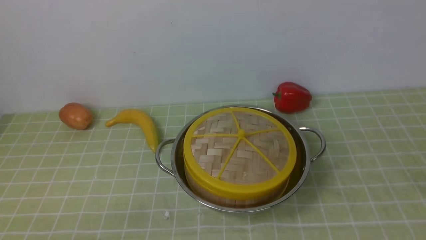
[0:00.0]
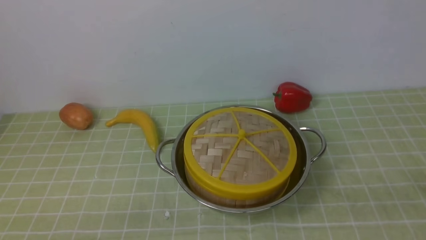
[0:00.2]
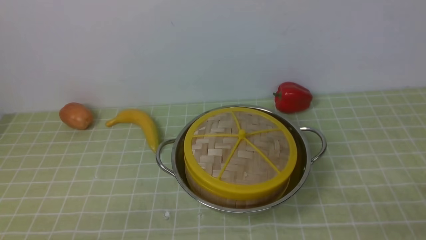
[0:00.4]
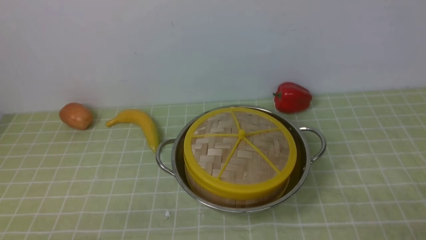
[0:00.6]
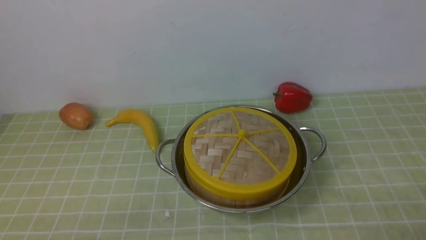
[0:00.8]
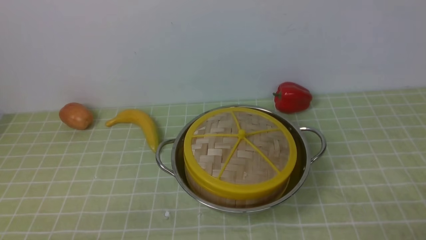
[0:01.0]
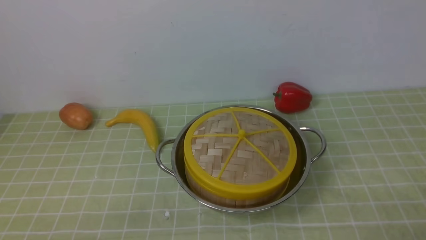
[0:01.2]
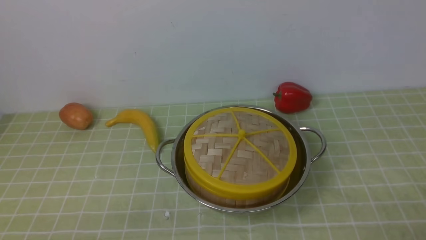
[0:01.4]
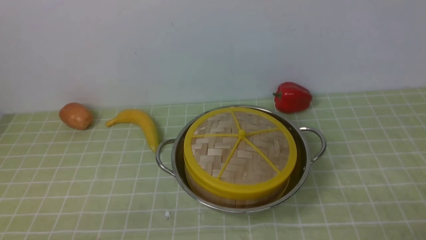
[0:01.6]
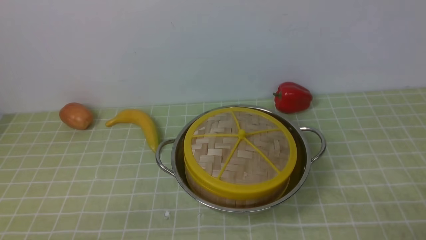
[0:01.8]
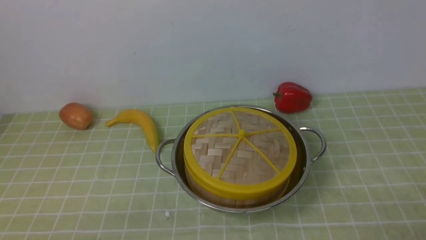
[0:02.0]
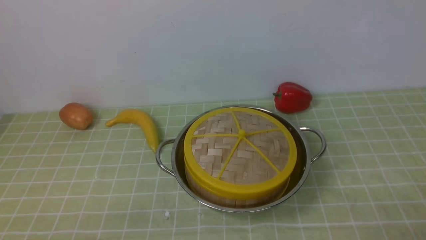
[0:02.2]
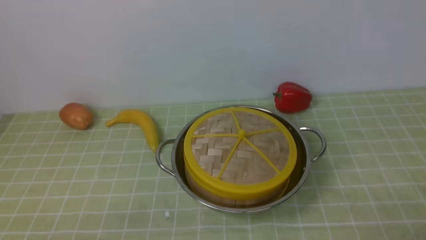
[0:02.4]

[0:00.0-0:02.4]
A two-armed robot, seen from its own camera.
Task of the whole recording: place the steamer in the pot on the green tablecloth, and put the lid on the steamer.
0:01.2 to 0:02.4: Both grippers stay put.
